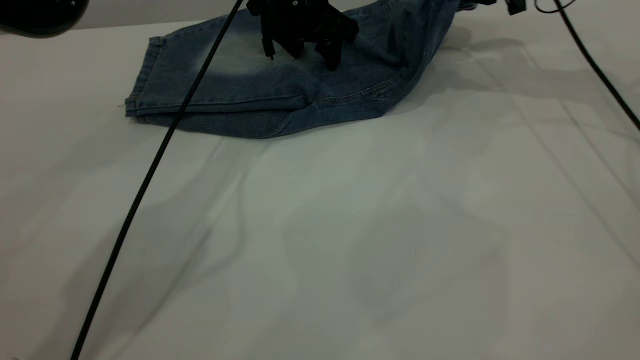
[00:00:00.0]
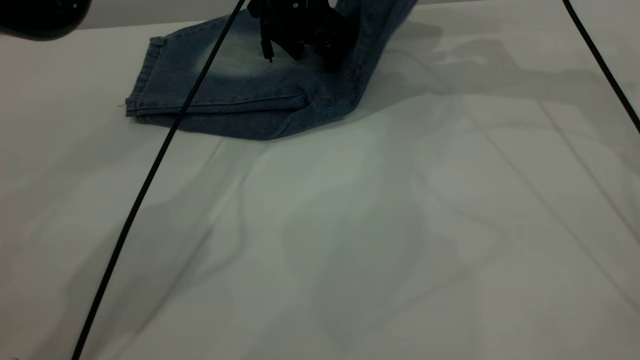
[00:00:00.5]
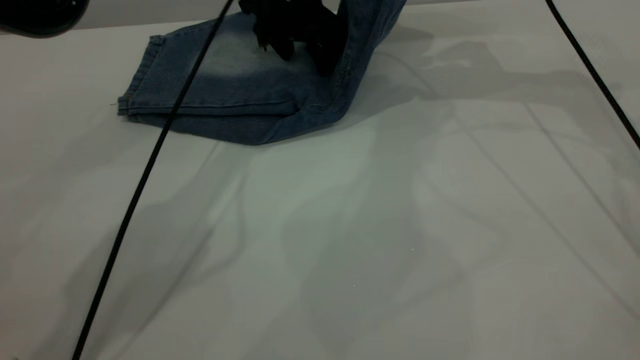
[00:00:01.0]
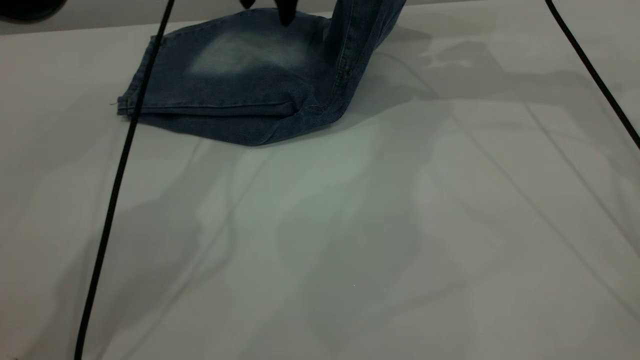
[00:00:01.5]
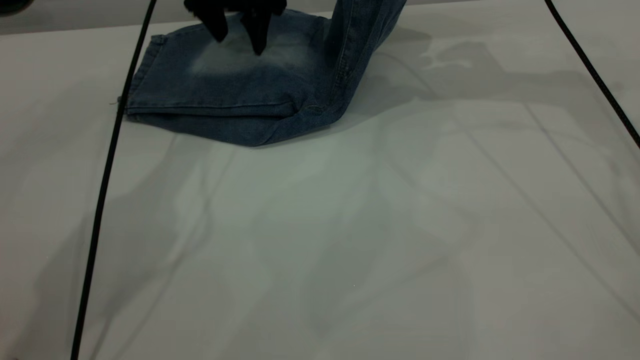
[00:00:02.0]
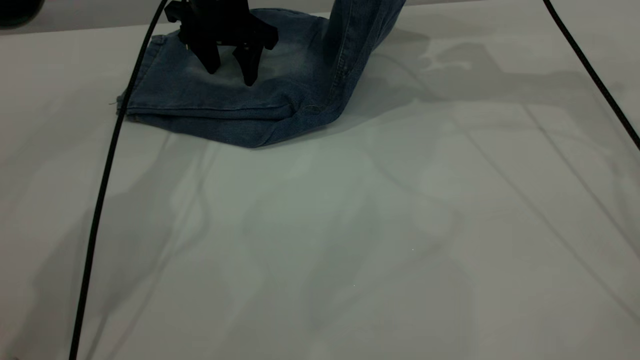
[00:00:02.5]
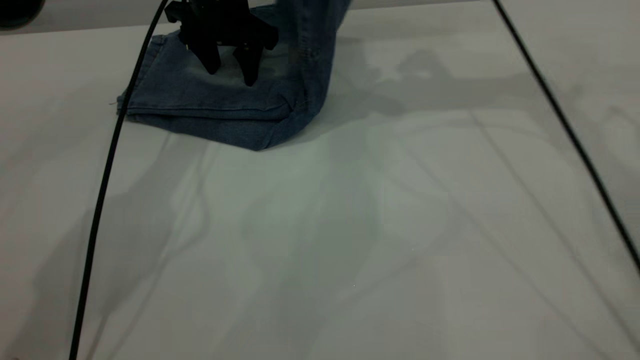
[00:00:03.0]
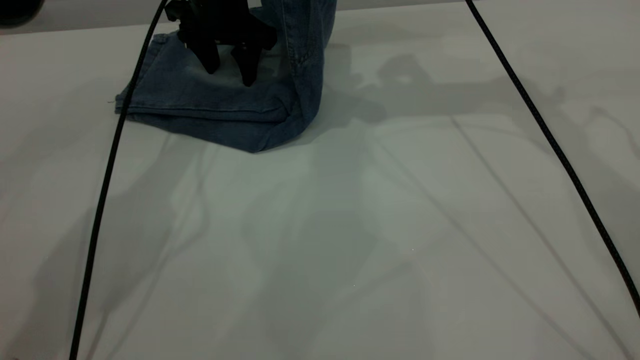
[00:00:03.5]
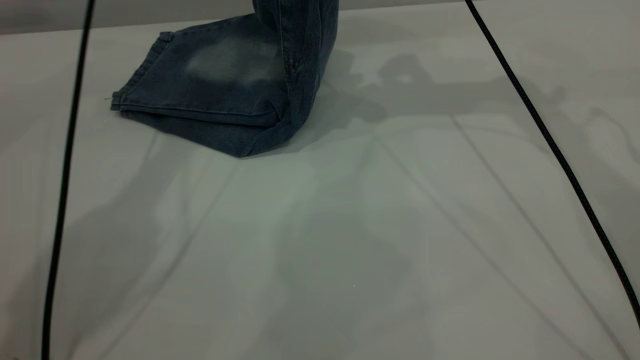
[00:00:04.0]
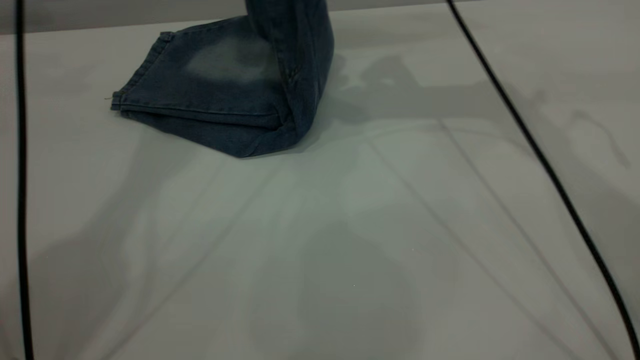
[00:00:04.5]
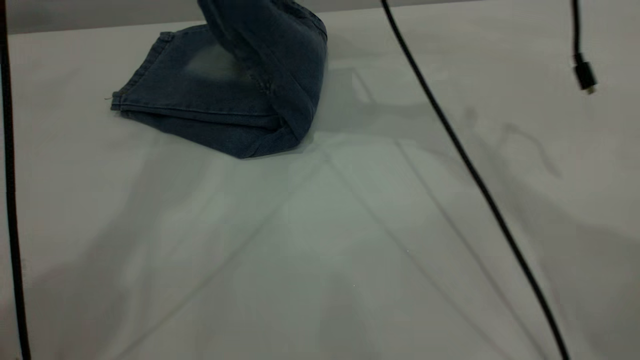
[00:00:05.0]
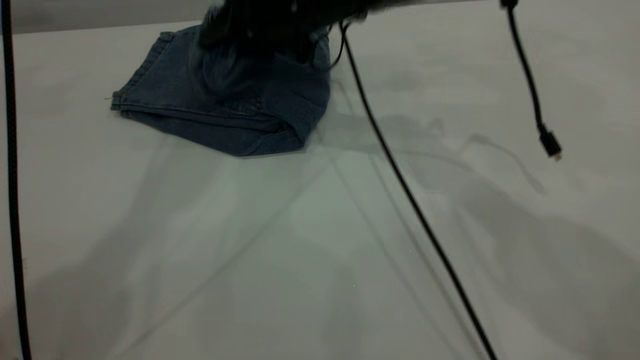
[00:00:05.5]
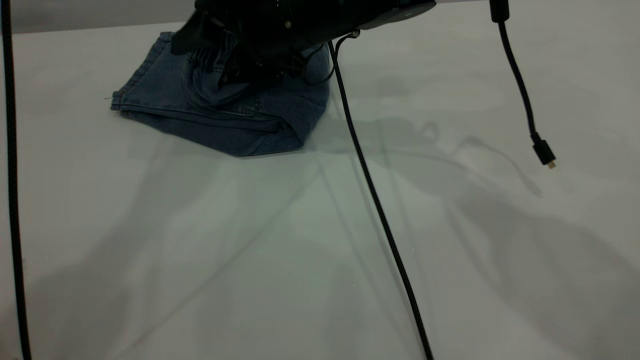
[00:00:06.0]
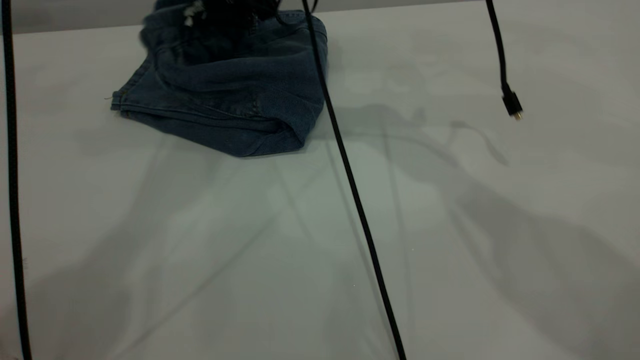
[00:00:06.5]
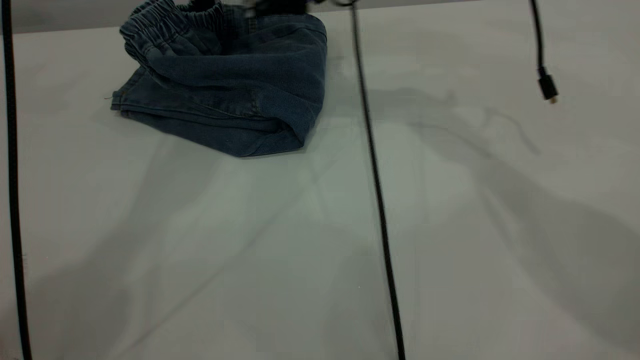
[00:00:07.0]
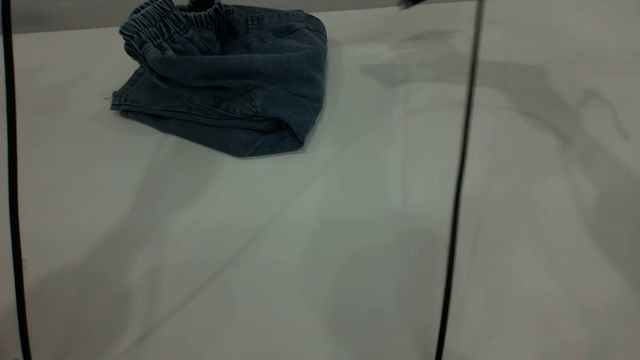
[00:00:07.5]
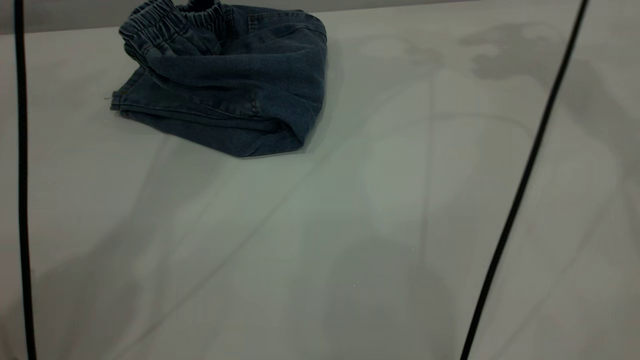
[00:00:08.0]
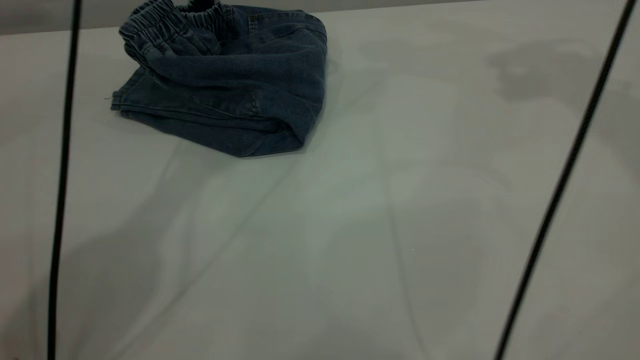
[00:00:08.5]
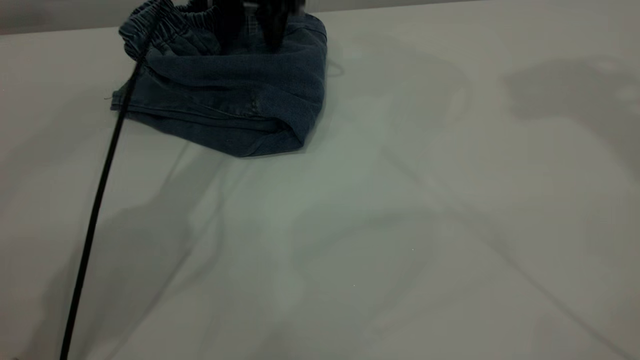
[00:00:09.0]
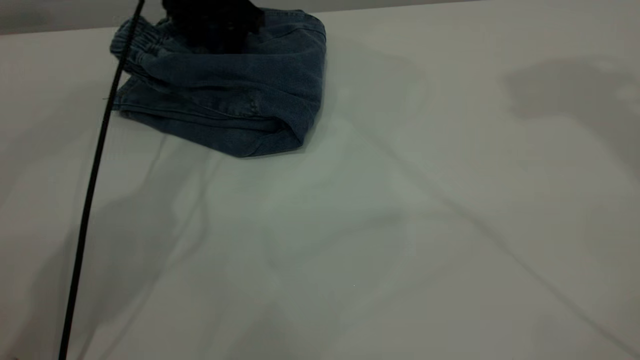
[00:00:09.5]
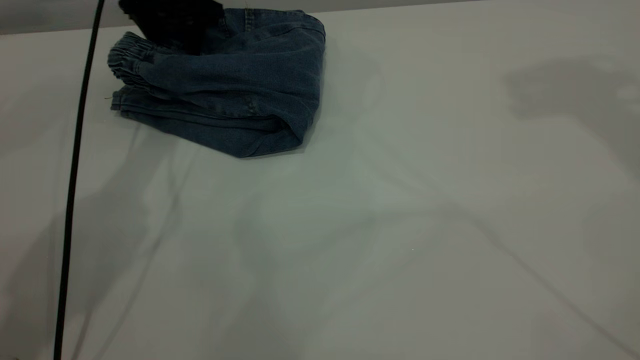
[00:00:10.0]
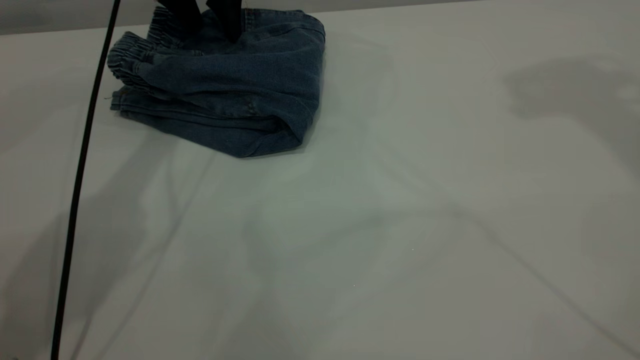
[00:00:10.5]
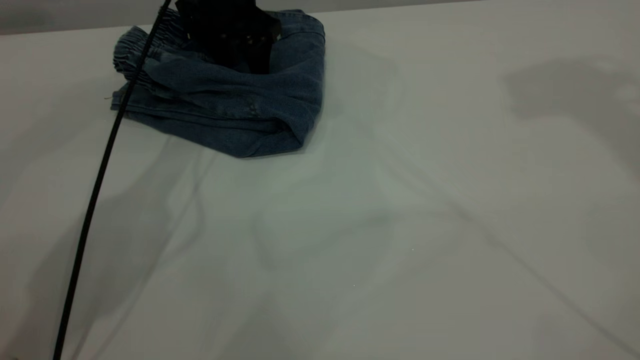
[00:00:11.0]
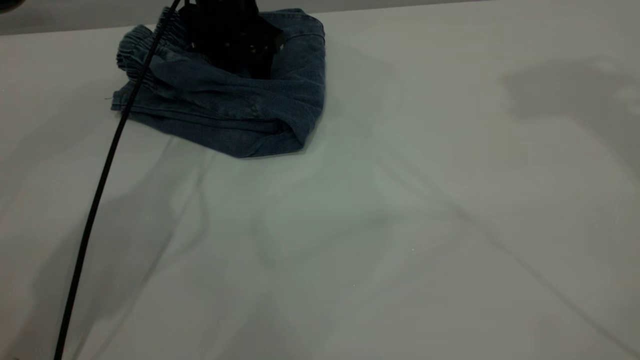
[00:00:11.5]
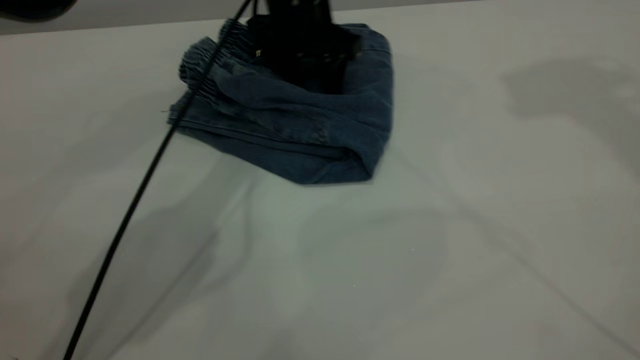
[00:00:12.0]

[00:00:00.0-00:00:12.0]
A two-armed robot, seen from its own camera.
Step, 00:00:00.0 to 00:00:07.0: Fold your pants from right to left.
00:00:00.0 to 00:00:02.0: The left gripper travels to the left by some 10 cm. Meanwhile the right gripper moves upward, some 5 cm.
00:00:02.0 to 00:00:04.0: The right gripper goes about 5 cm to the left; the left gripper travels upward by some 10 cm.
00:00:04.0 to 00:00:06.0: The left gripper is displaced upward and backward by roughly 20 cm. Meanwhile the right gripper moves to the left and downward, approximately 15 cm, and opens its fingers.
00:00:06.0 to 00:00:08.0: The right gripper is displaced to the right and upward by some 30 cm.
00:00:08.0 to 00:00:10.0: The left gripper travels downward by some 25 cm, while the right gripper moves upward and backward, about 20 cm.
00:00:10.0 to 00:00:12.0: The left gripper moves to the right and backward, about 15 cm.

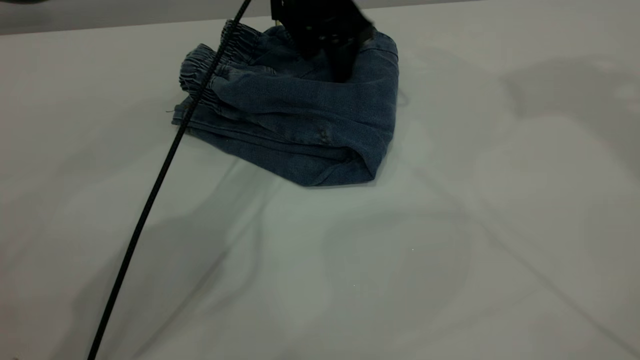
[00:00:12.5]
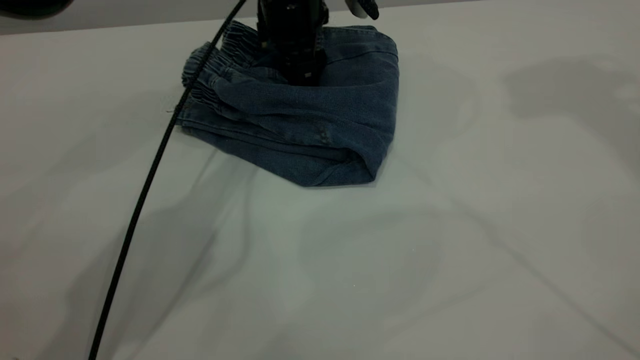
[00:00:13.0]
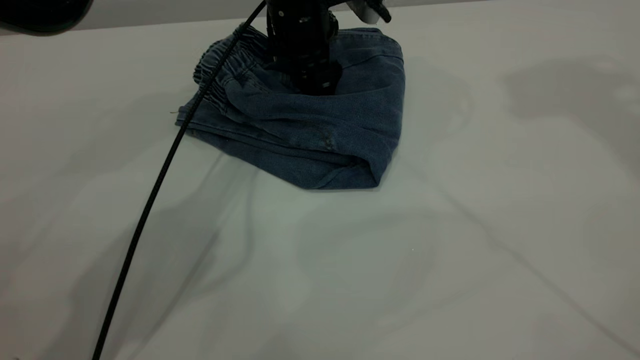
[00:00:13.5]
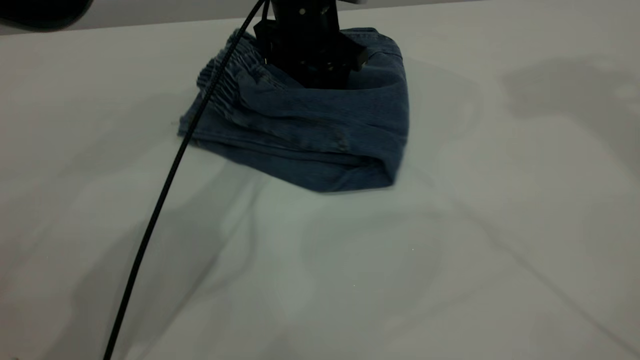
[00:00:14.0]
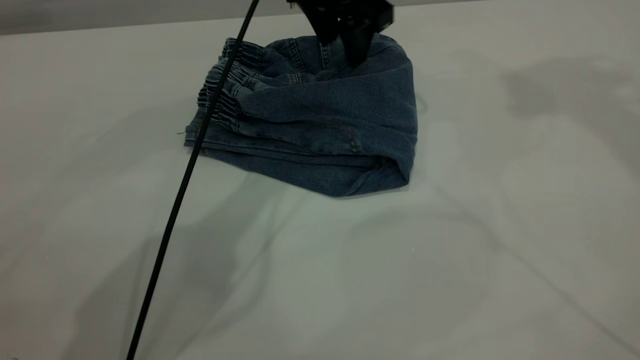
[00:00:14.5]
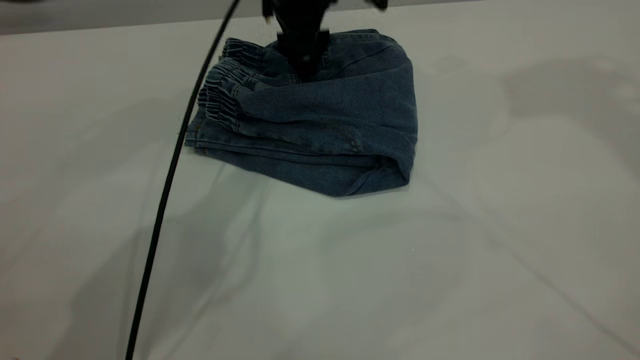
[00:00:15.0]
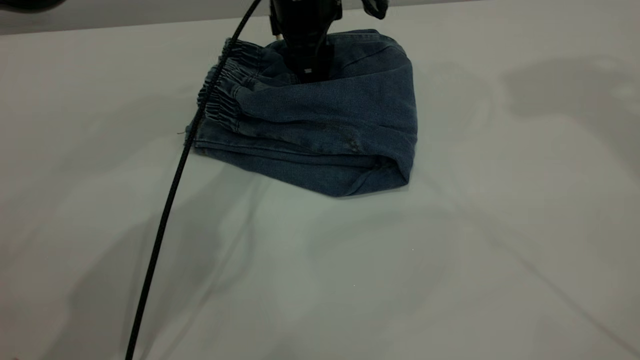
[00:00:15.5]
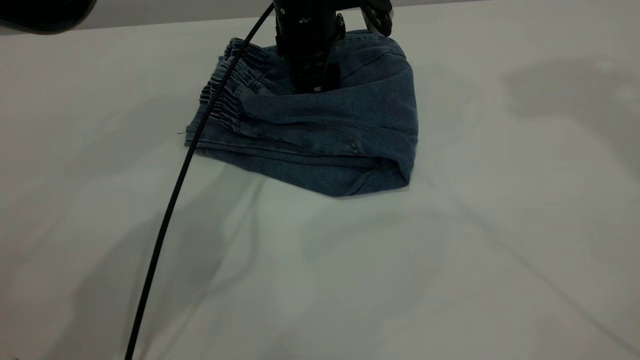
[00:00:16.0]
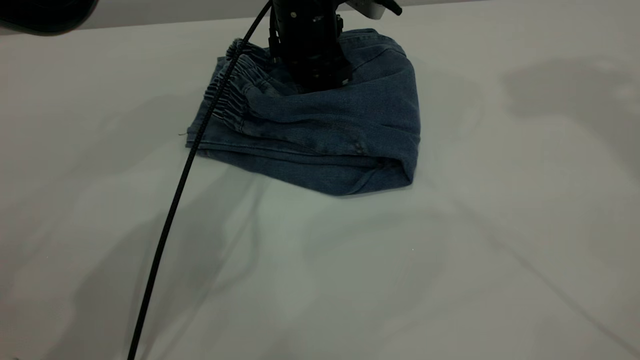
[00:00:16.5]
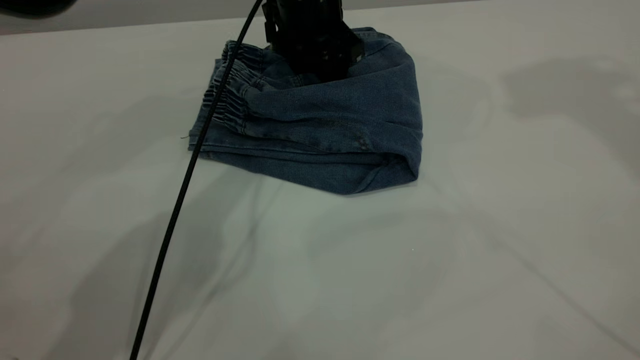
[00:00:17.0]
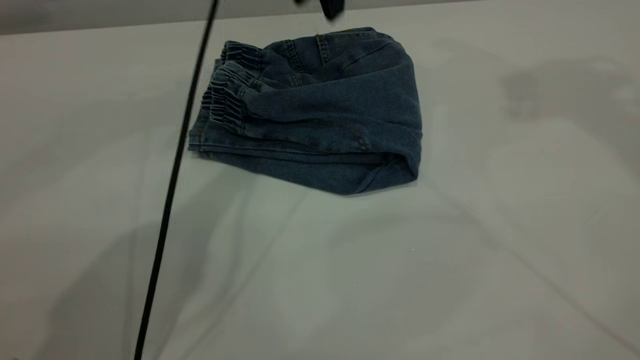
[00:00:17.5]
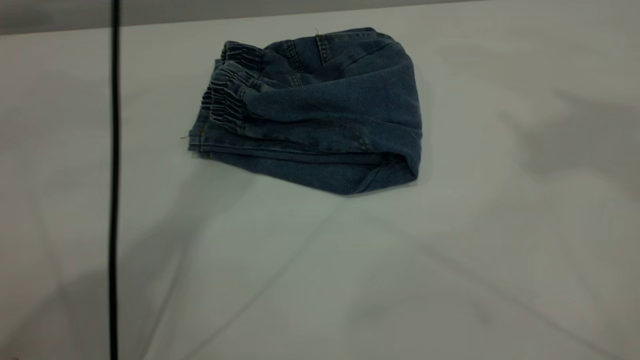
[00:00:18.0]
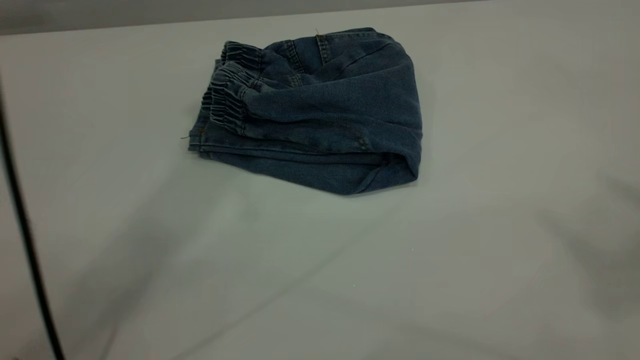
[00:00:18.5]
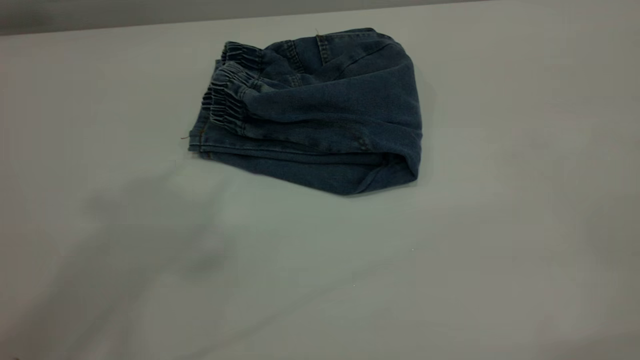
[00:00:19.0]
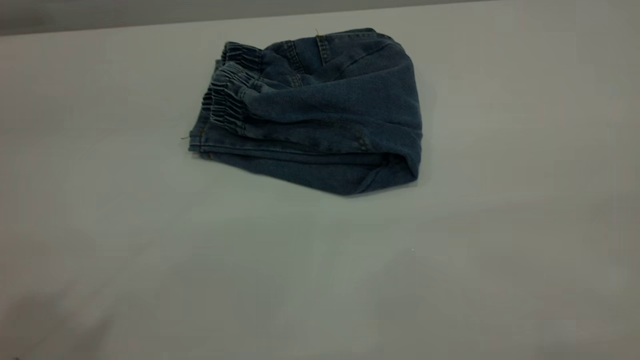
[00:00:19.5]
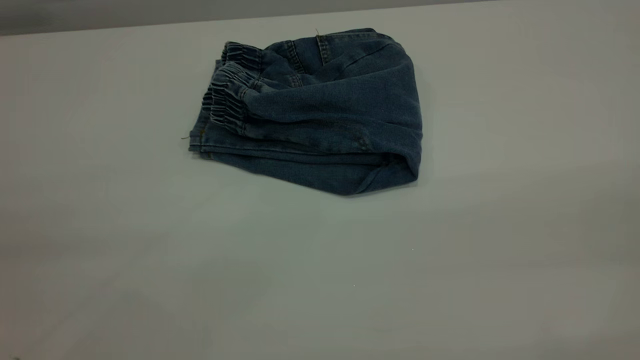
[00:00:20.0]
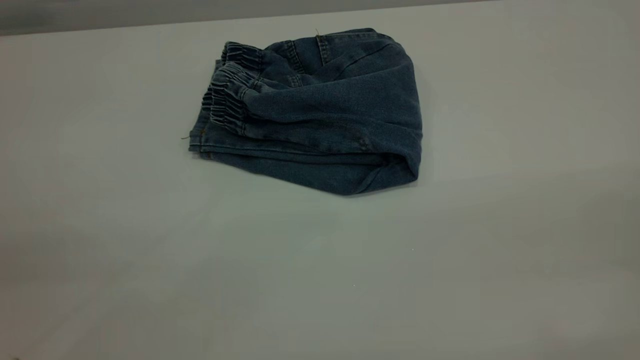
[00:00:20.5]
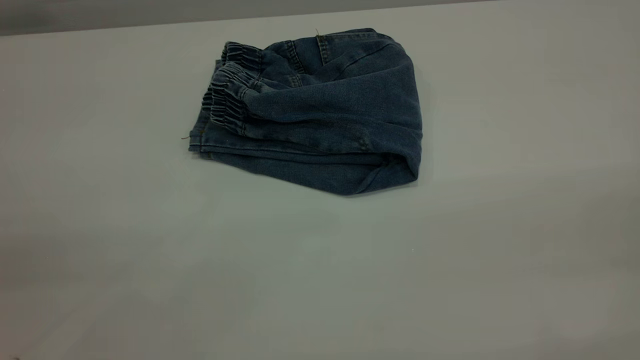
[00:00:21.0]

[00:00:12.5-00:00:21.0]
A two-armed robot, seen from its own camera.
00:00:12.5 to 00:00:14.5: The left gripper reaches approximately 5 cm downward, then returns.
00:00:14.5 to 00:00:16.5: The left gripper goes roughly 5 cm downward.
00:00:16.5 to 00:00:19.0: The right gripper travels backward by some 35 cm, while the left gripper travels upward and backward by approximately 50 cm.
